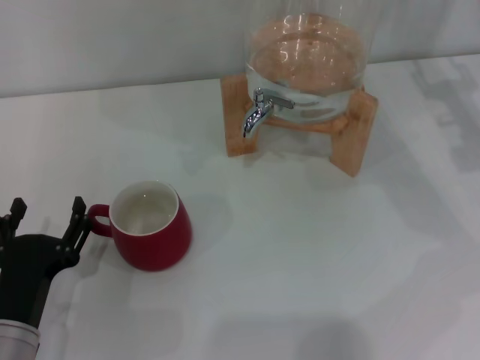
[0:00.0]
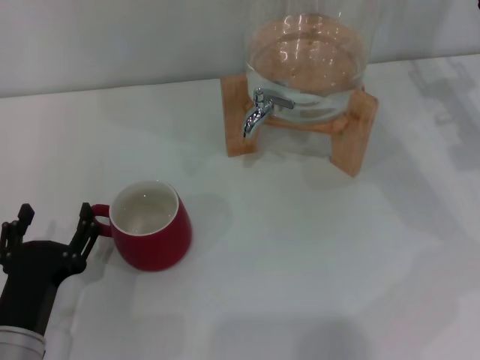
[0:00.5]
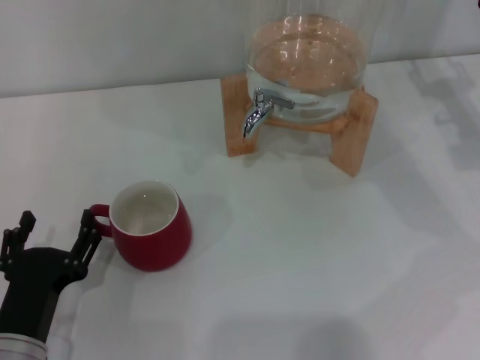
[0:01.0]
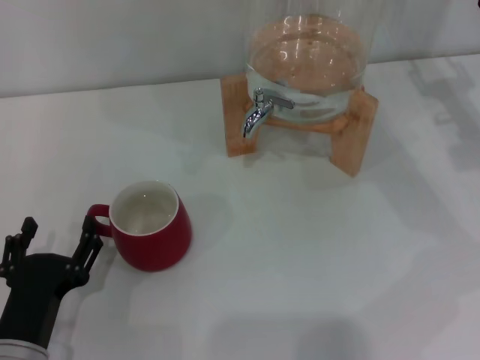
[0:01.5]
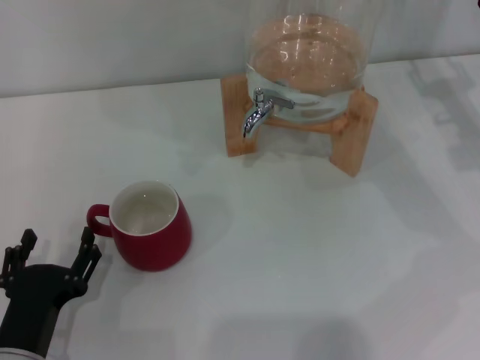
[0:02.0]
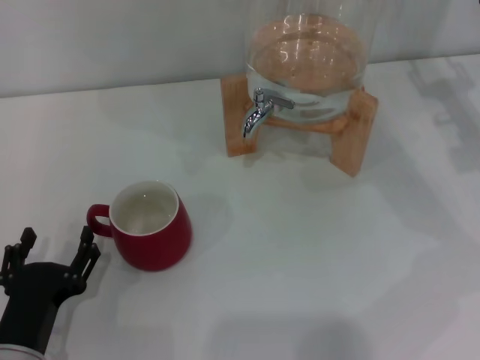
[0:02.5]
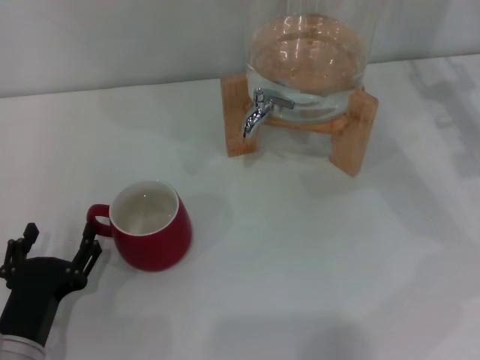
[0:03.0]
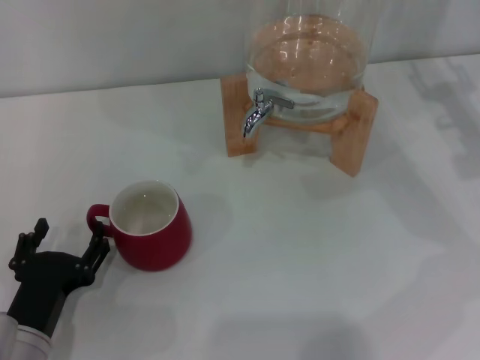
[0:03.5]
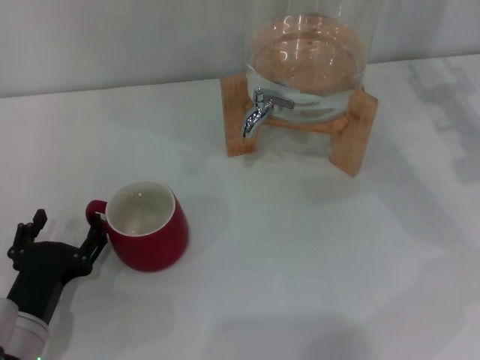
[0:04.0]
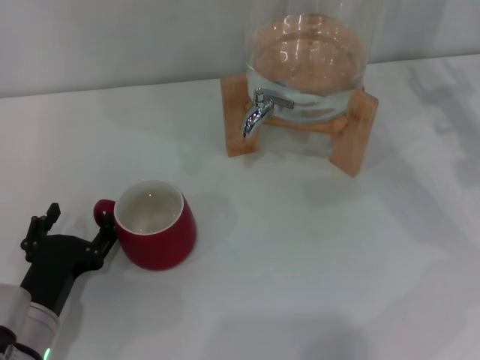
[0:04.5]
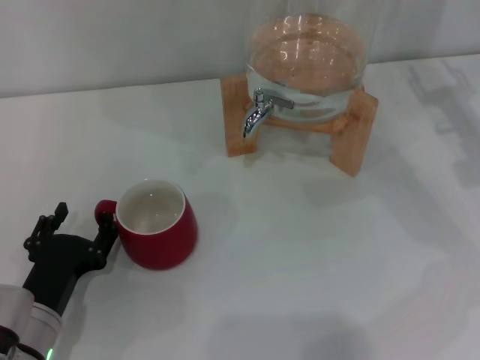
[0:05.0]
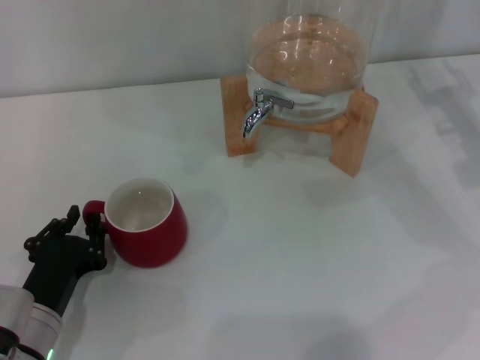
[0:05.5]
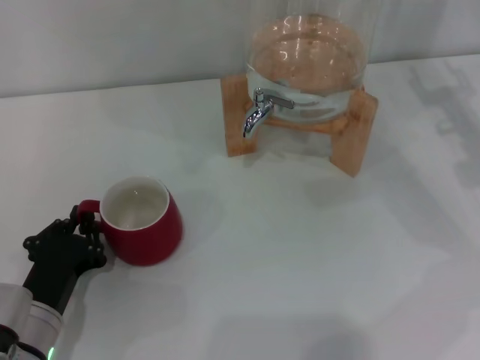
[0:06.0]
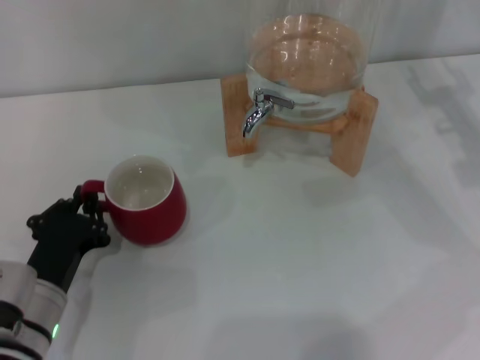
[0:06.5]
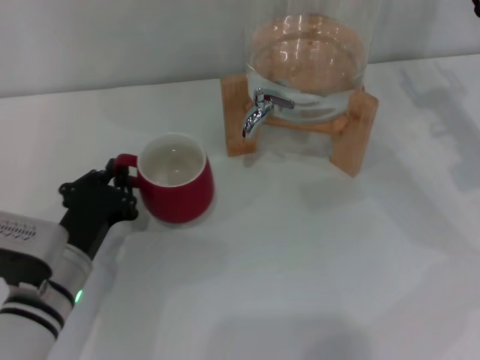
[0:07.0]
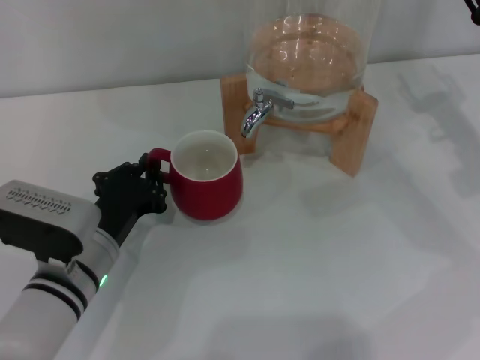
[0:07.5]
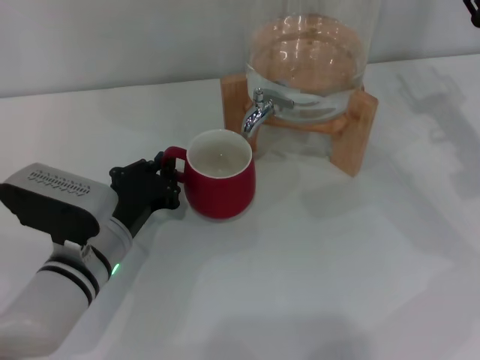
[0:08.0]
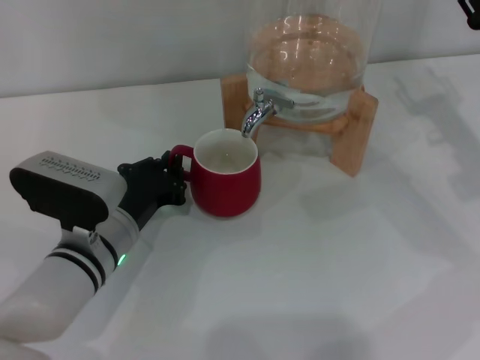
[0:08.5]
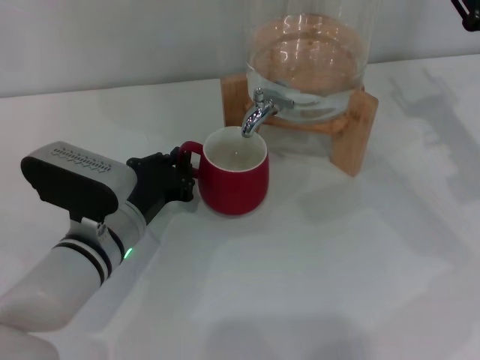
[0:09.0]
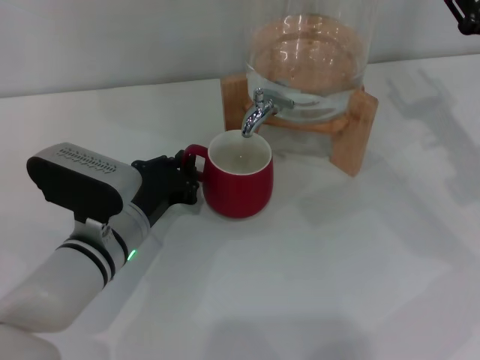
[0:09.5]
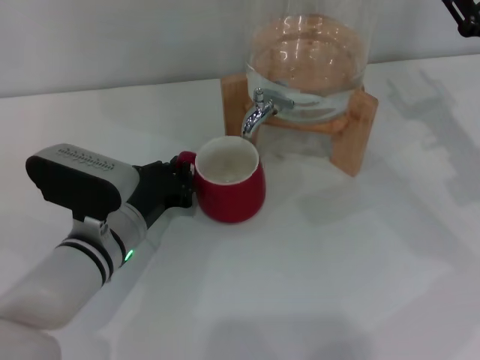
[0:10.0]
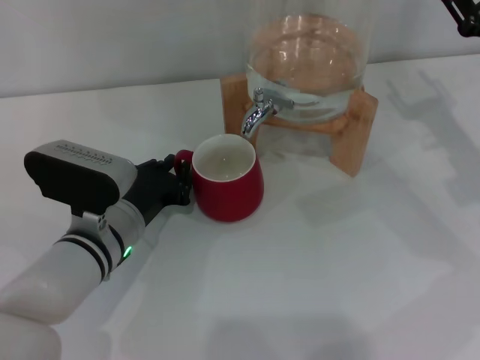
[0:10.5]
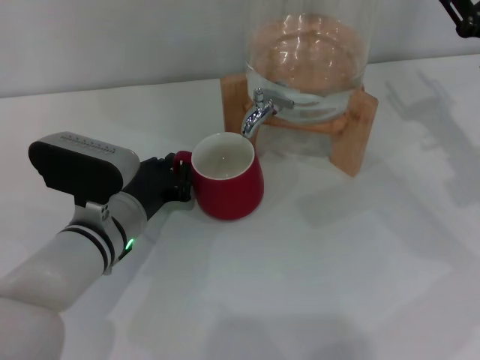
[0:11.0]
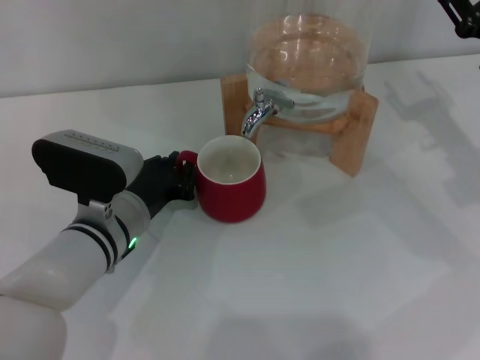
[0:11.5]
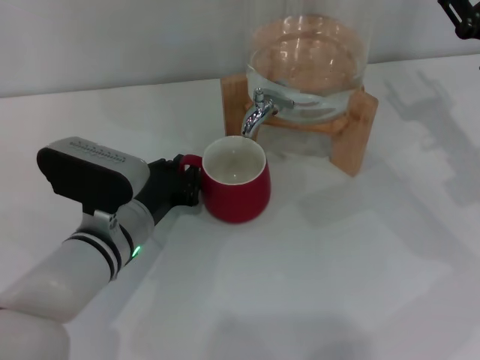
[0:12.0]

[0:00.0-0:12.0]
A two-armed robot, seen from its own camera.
Task of the whole recording: the left gripper pick up the red cup and place it horizontally under the faucet, the right gripper turn on the faucet to fill the cup, and then turn off the faucet.
0:00.0 to 0:04.0: The grippers move only a little.
0:04.0 to 0:06.0: The left gripper closes its fingers.
0:06.0 to 0:08.0: The left gripper is displaced forward and to the right by roughly 10 cm.
0:08.0 to 0:12.0: There are only small adjustments of the grippers.

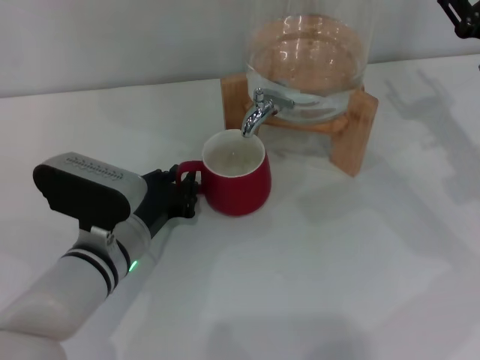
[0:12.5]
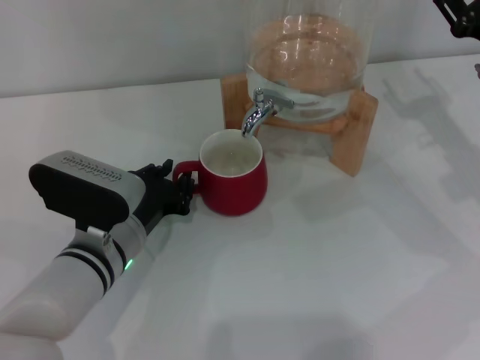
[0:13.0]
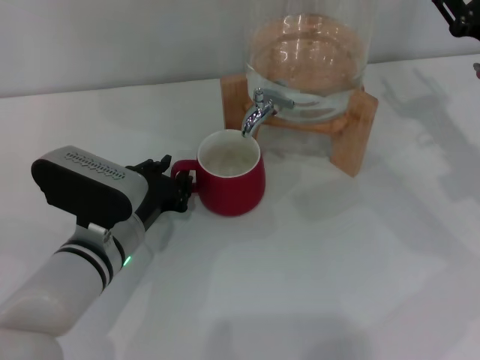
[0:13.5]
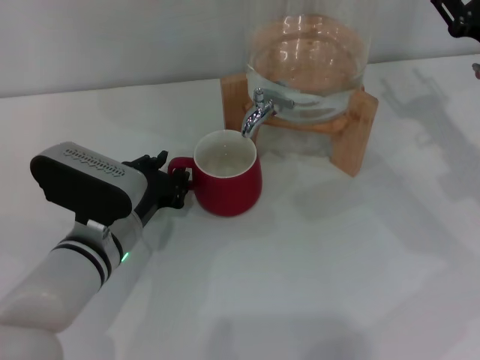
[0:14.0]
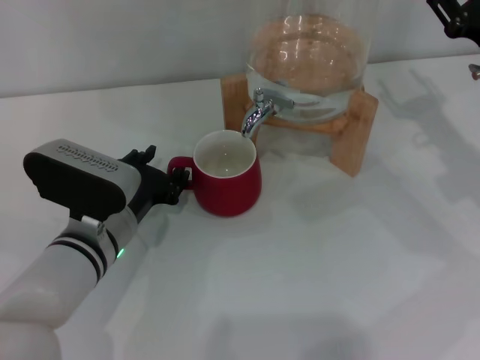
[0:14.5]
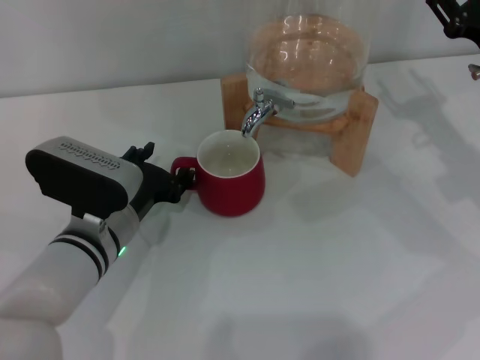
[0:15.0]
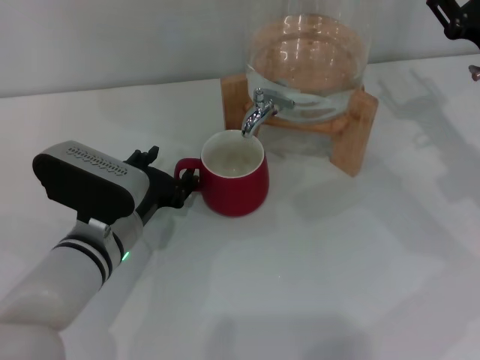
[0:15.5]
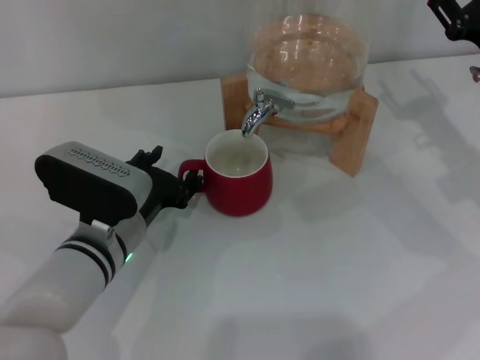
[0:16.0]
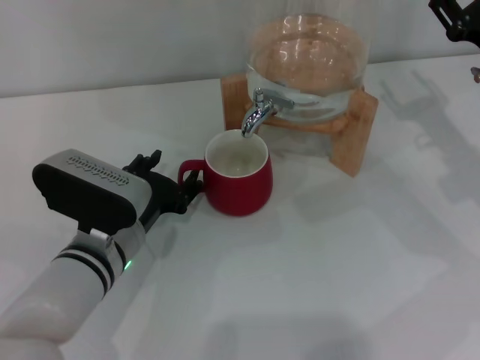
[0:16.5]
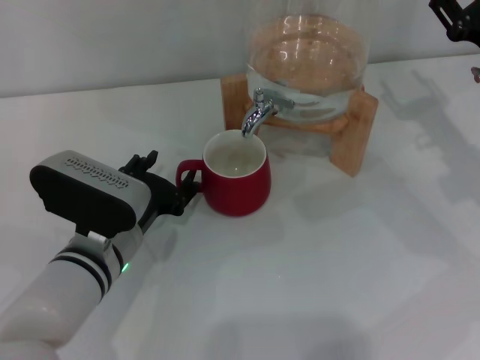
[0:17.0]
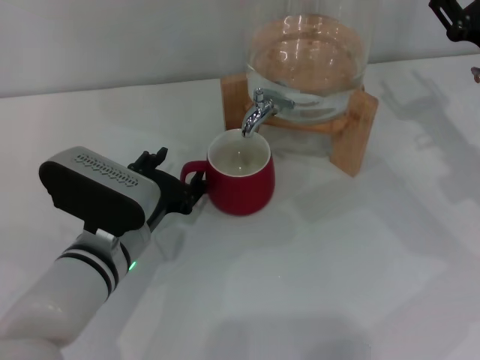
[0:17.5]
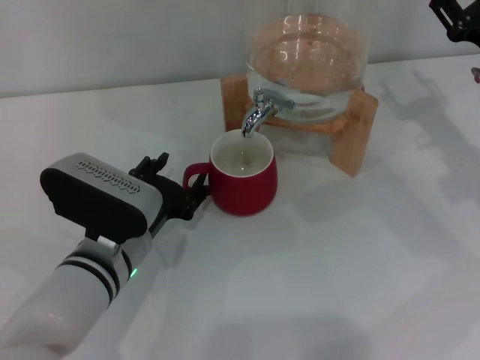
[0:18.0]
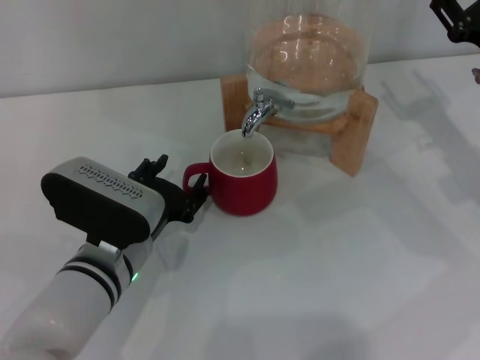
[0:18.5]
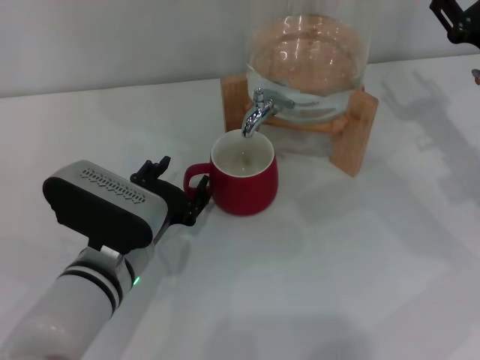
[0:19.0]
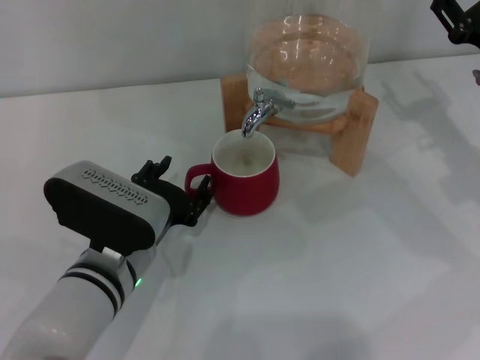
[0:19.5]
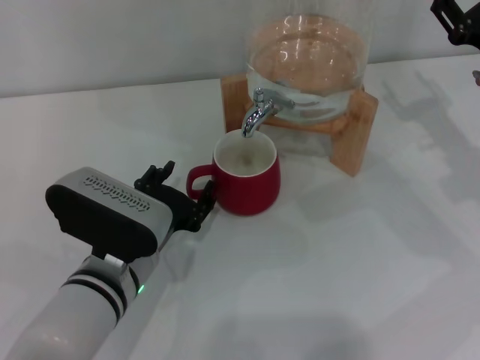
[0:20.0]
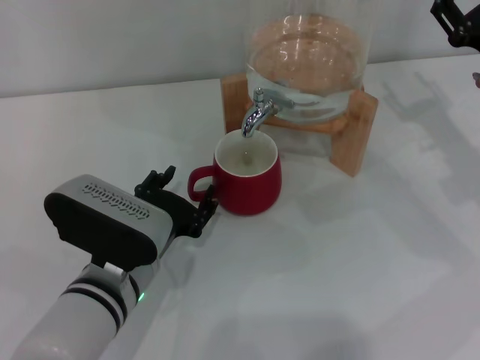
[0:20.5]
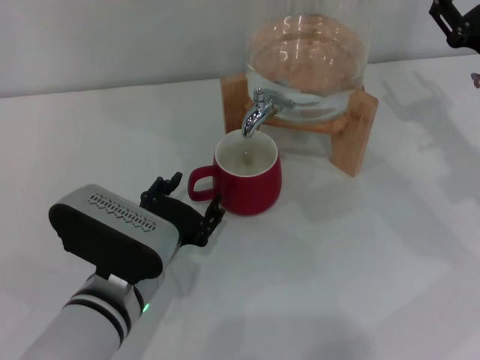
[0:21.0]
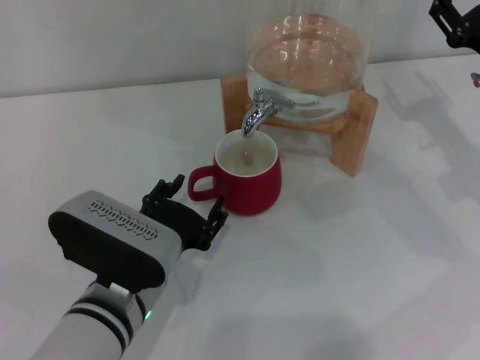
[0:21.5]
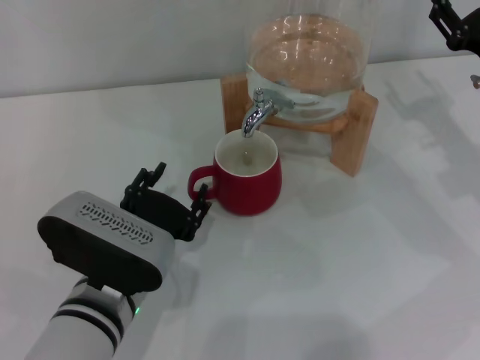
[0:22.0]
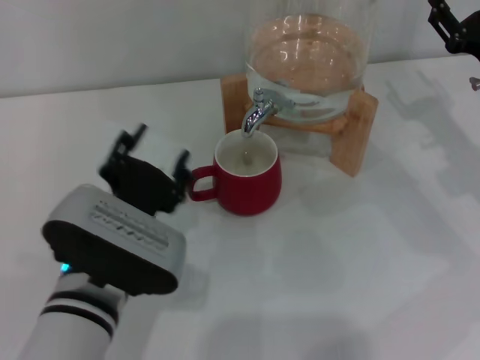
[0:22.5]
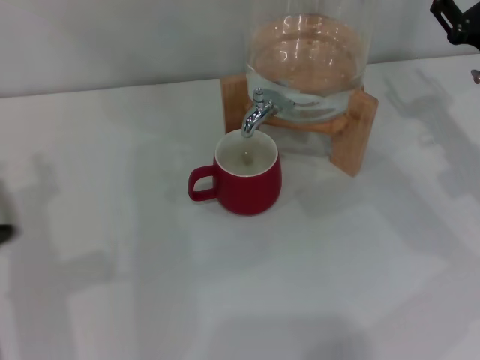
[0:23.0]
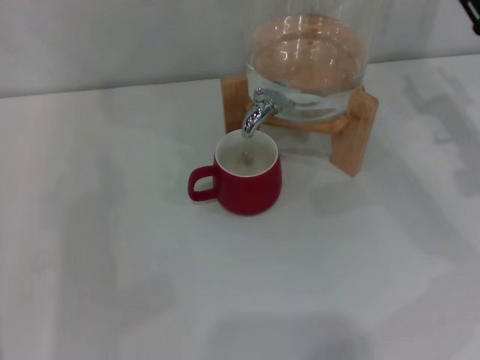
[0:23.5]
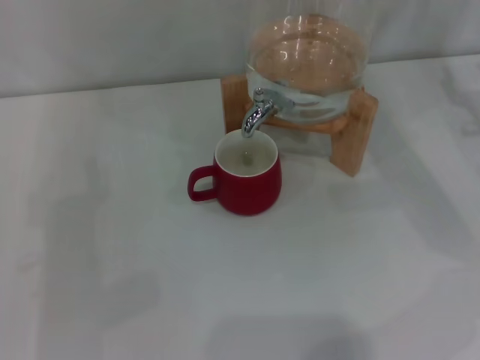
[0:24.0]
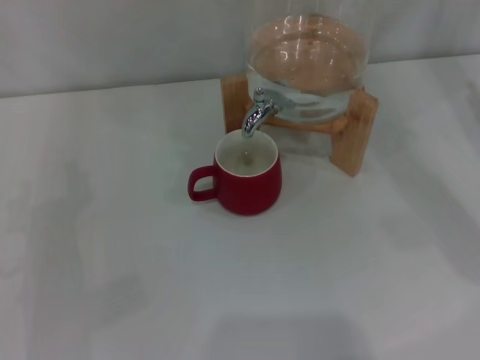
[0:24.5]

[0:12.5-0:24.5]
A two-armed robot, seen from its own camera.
Task of the whole recording: the left gripper pick up the red cup and place it horizontally under the faucet, the right gripper turn on the faucet to fill the cup, and then turn off the faucet.
Step, 0:12.5 to 0:22.0: Move the cup beneath the water dispenser nozzle with the left gripper.
0:12.5 to 0:14.5: There are only small adjustments of the grippers.
0:14.5 to 0:16.5: The left gripper opens.
0:16.5 to 0:20.5: The grippers stay close to where they were, moving slightly.
0:22.5 to 0:24.5: The left gripper moves to the left, about 20 cm. Meanwhile the right gripper goes approximately 5 cm to the right.

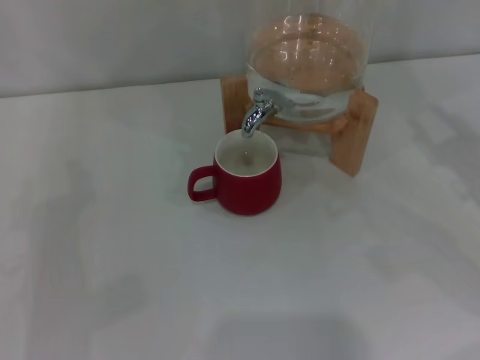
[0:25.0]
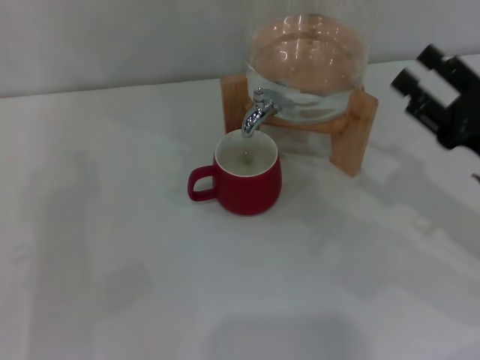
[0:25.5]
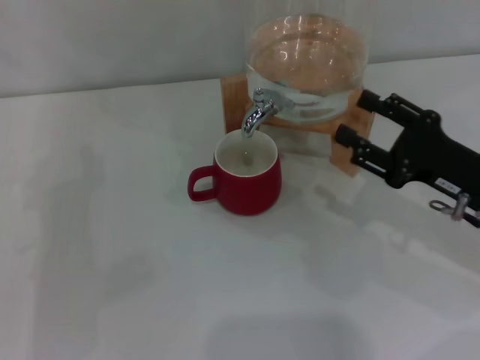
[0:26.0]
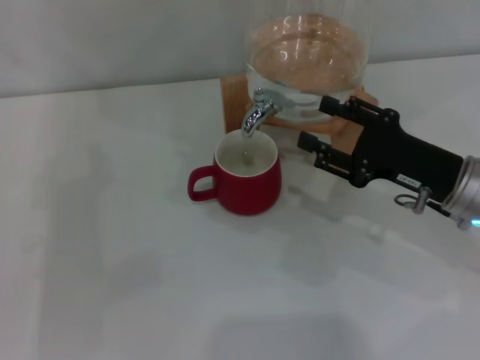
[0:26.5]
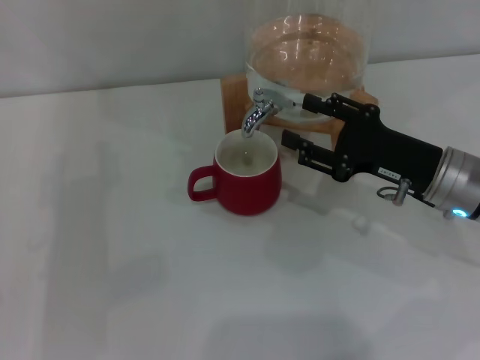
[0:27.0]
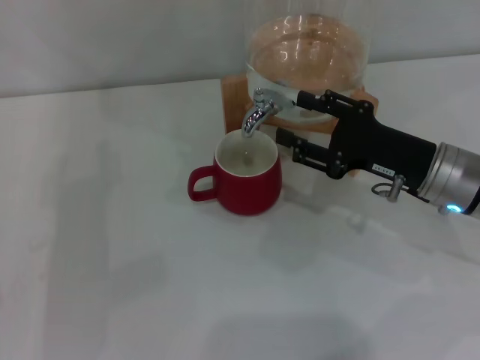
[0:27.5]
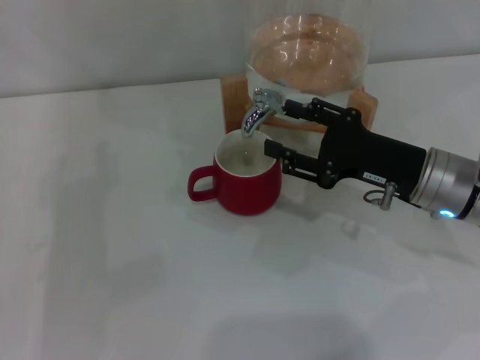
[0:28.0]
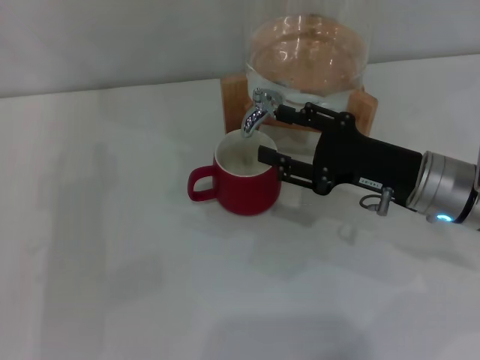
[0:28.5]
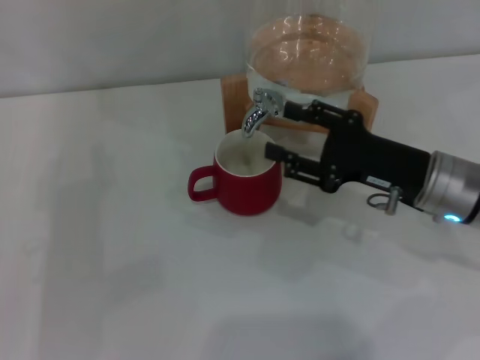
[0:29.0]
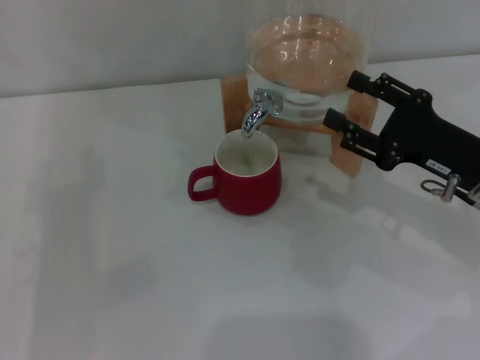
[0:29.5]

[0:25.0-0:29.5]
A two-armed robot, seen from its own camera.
Task of the whole recording: the left gripper pick up the red cup and place it horizontally under the faucet, the right gripper turn on the faucet to fill the cup, and then turn off the faucet.
0:25.0 to 0:27.0: The right gripper is displaced to the left by about 10 cm.
0:27.0 to 0:29.5: The grippers move only a little.
